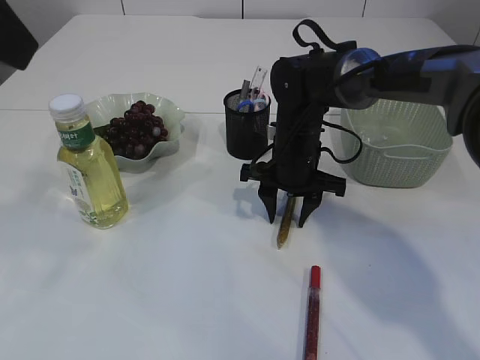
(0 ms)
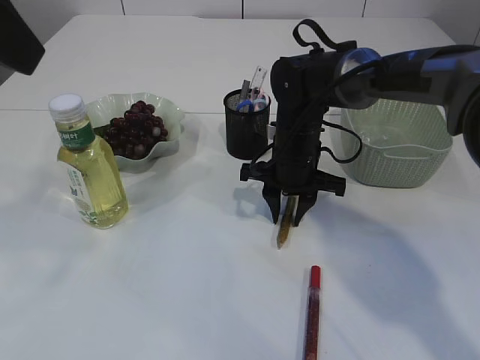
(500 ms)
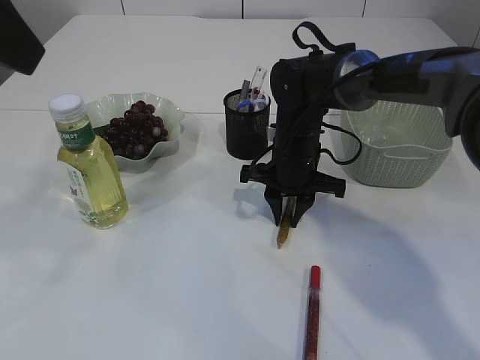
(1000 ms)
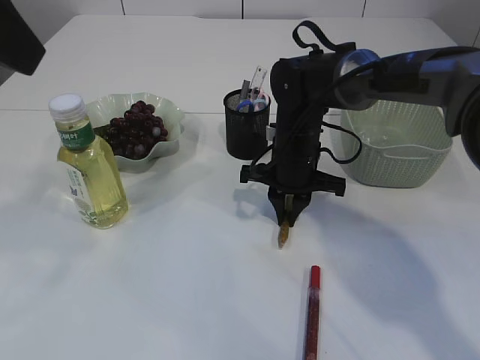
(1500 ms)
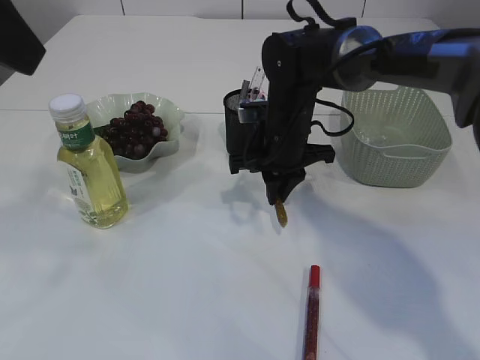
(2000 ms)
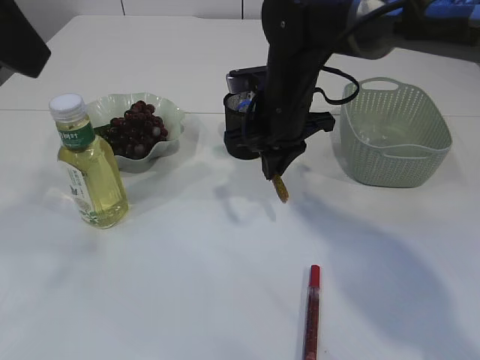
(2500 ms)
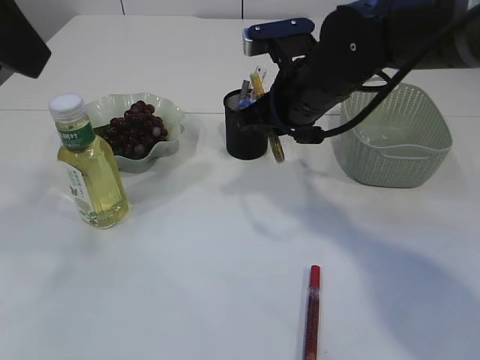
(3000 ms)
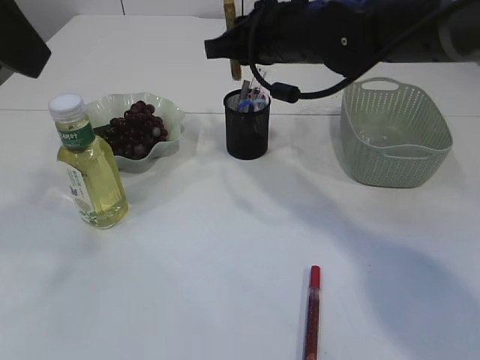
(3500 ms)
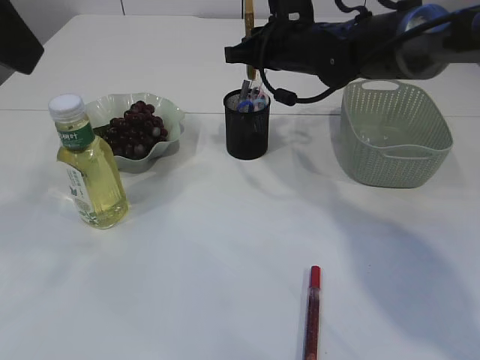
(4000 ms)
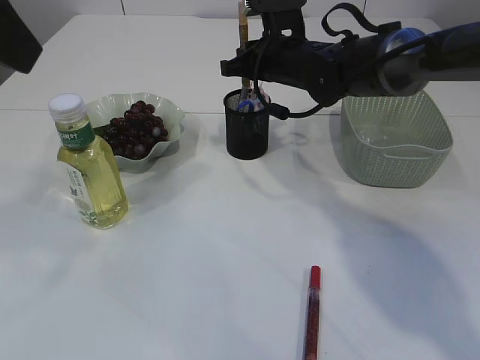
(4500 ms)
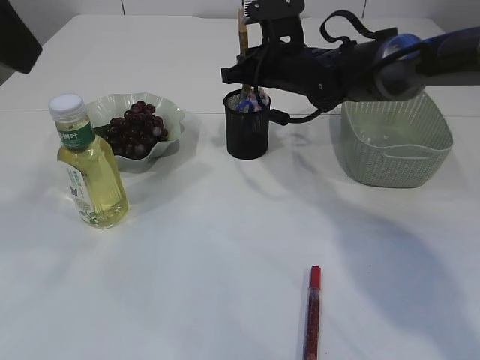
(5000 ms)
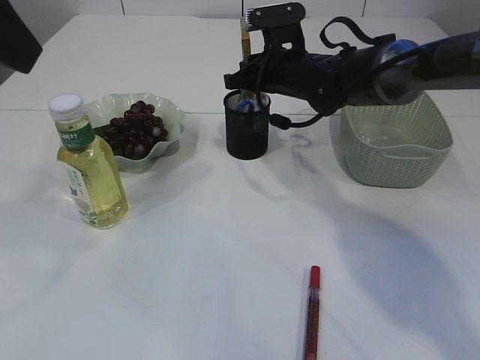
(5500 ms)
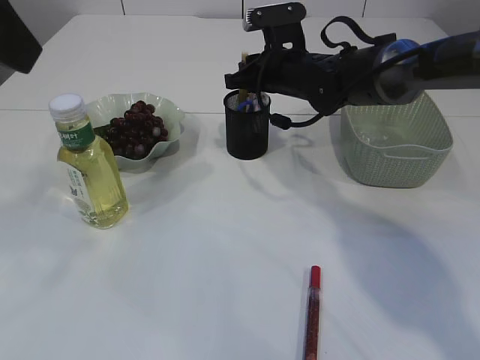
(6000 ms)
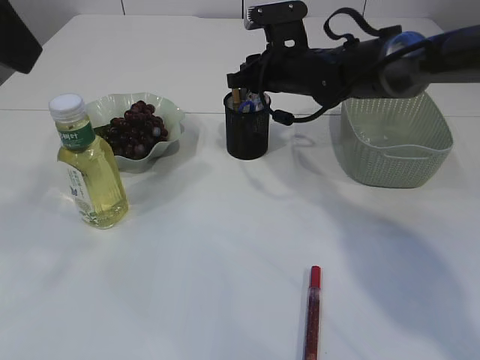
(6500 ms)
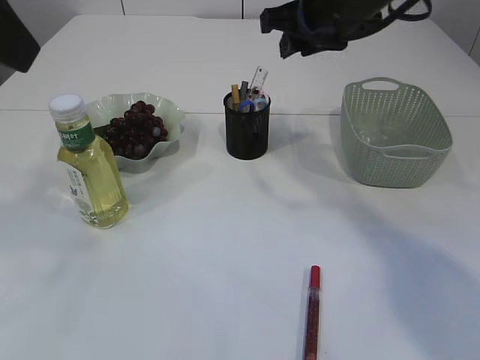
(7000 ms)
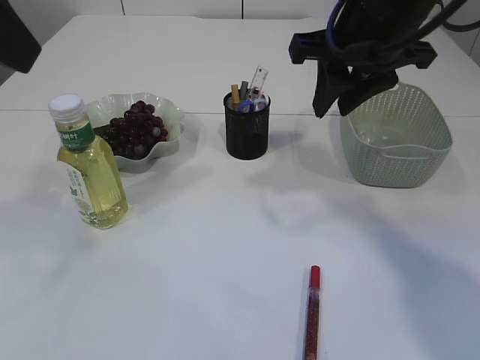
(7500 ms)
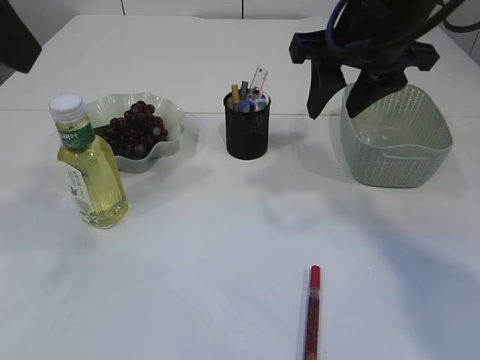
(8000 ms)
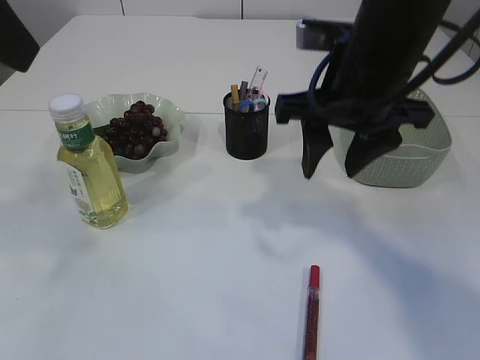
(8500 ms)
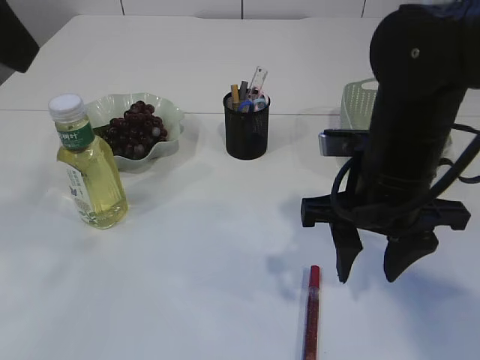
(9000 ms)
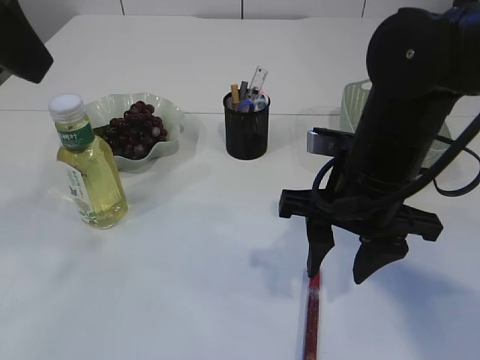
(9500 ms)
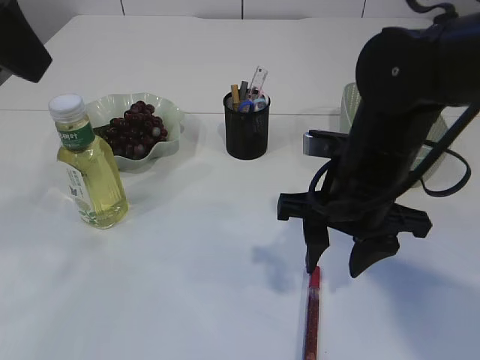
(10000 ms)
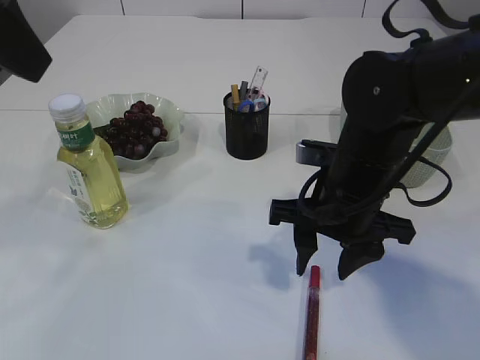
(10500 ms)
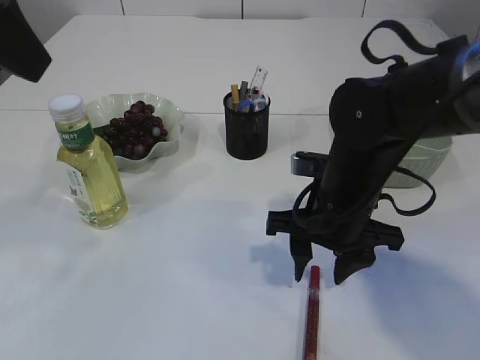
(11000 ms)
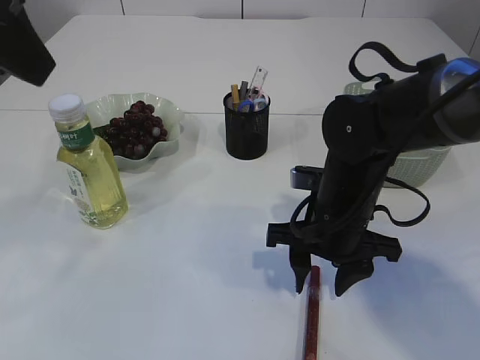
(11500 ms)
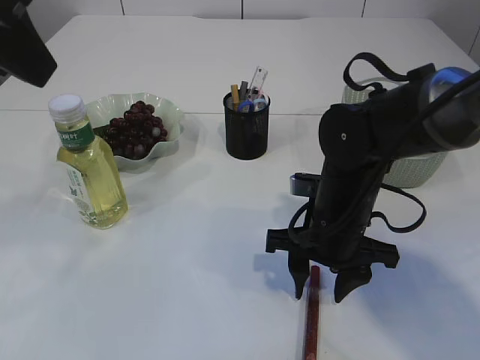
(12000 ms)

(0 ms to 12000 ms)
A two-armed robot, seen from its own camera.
Step, 0 ms - 2500 ms: pick up the yellow glue.
Step, 3000 ms - 6500 ms: place the yellow glue into the pen holder.
0 ms - 2000 ms: The right gripper closes its fingers.
2000 ms - 4000 ms: The right gripper goes some 10 cm upward.
4000 ms - 6000 ms: The grippers stay close to where they were, moving slightly.
6000 ms - 8000 ms: The right gripper is displaced backward and upward by about 20 cm, and opens its fingers.
8000 ms - 10000 ms: The right gripper moves downward and backward, some 15 cm.
10000 ms - 12000 ms: The right gripper goes approximately 10 cm downward.

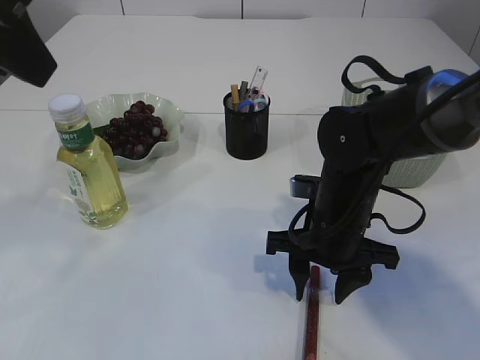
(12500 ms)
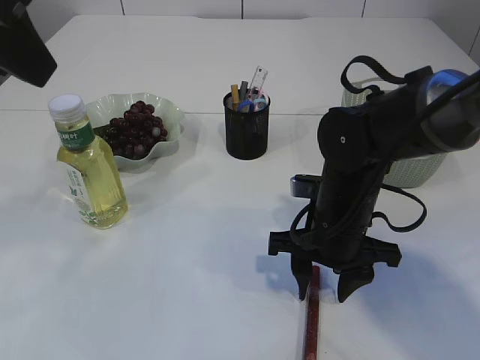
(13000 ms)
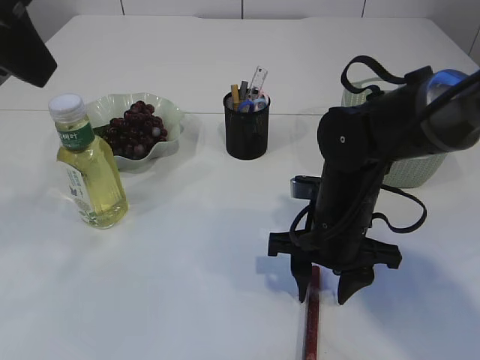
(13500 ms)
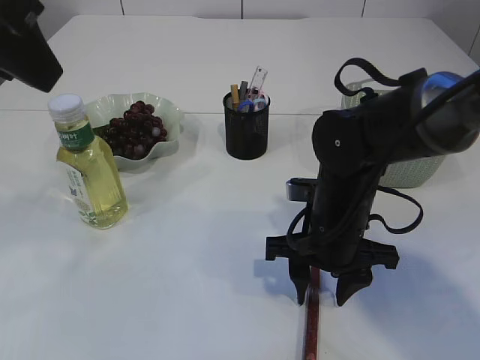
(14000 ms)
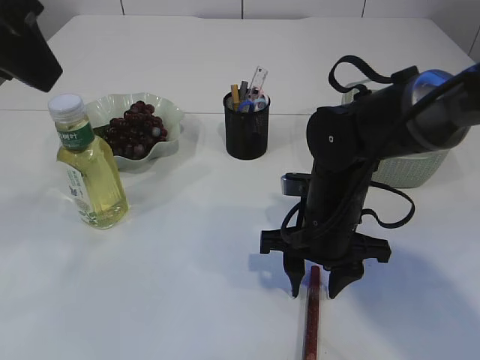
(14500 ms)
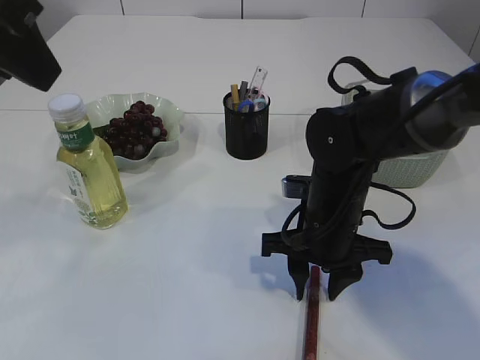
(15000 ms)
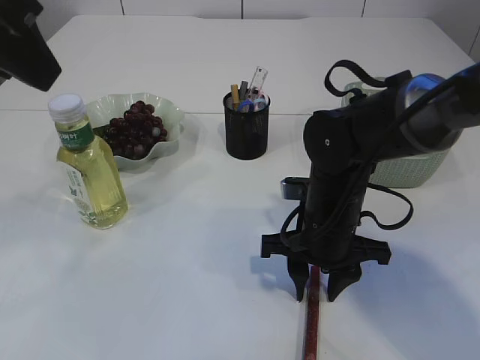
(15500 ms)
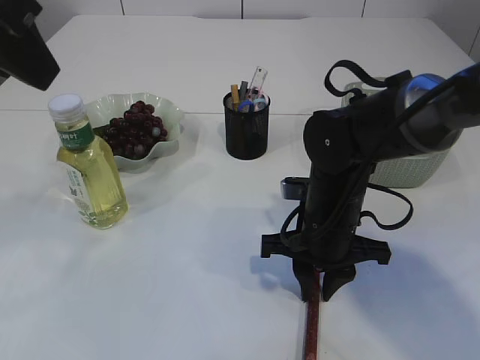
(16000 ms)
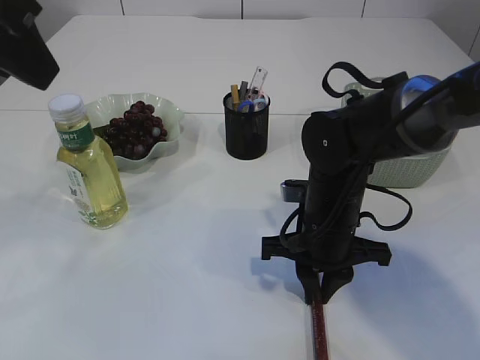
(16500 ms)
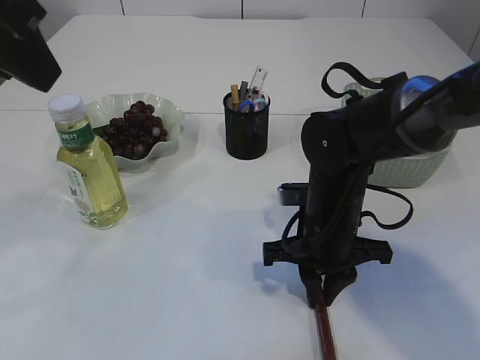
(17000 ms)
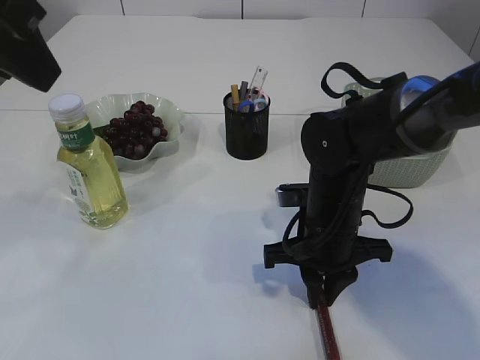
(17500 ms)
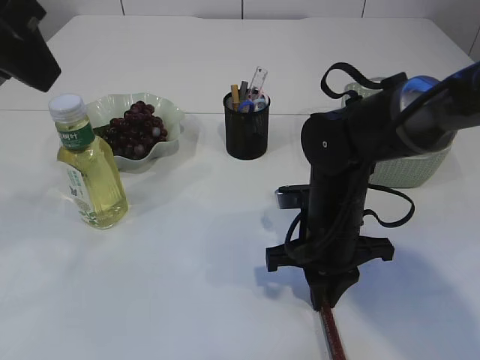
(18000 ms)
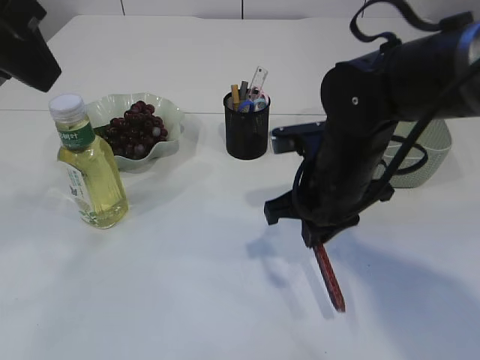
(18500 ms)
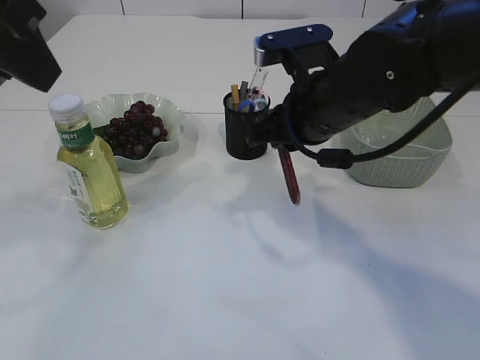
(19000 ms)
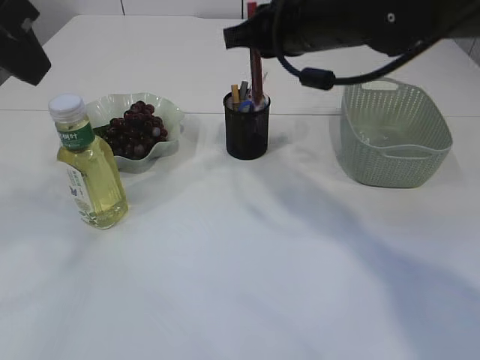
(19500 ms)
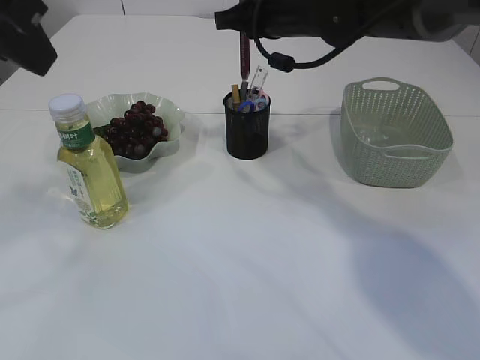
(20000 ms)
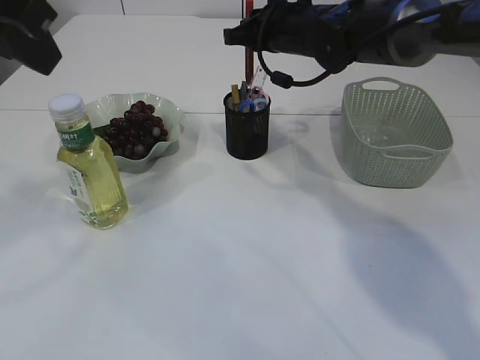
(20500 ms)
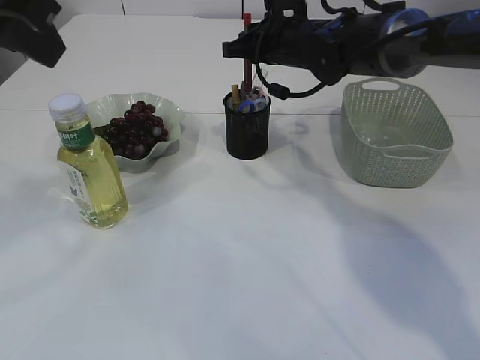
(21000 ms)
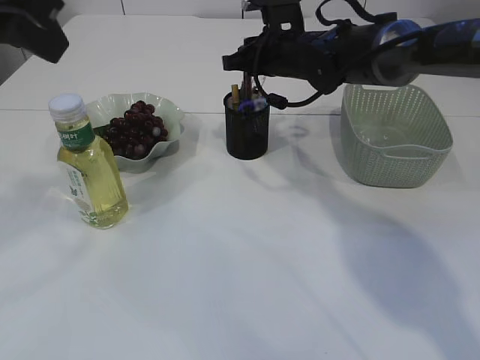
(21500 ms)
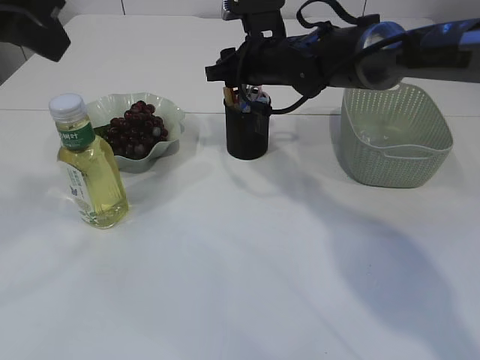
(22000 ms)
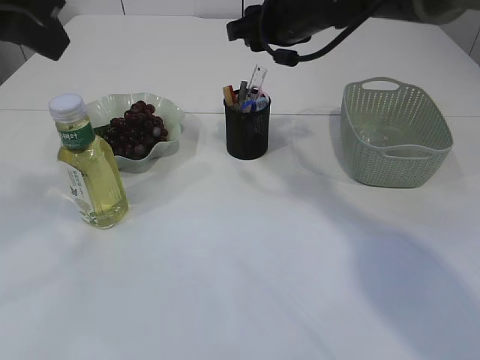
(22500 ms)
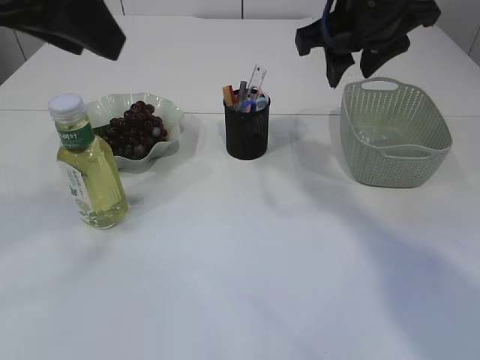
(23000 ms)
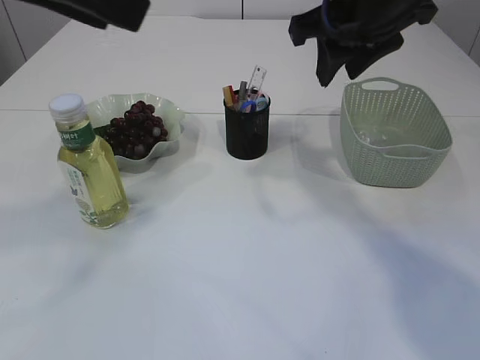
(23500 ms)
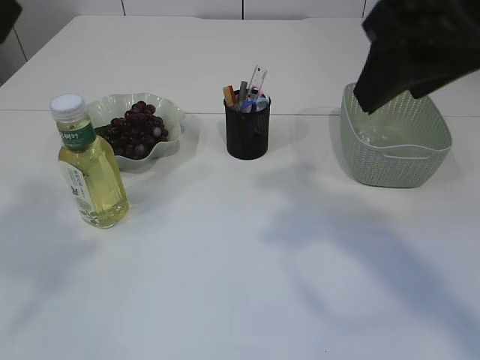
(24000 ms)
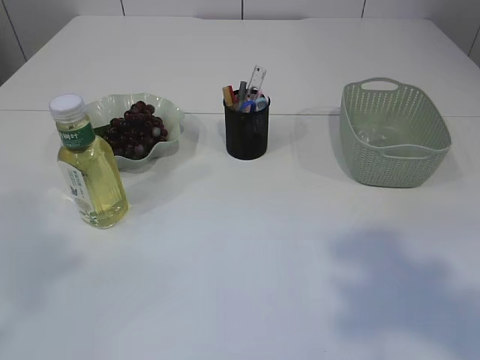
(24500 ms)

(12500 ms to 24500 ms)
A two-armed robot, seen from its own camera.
Step, 12500 ms - 18500 ms: pick up the red glue.
Step, 19000 ms - 22000 ms: place the red glue into the pen holder.
12500 ms - 14500 ms: Both grippers stay put.
14500 ms - 16500 ms: The right gripper closes.
16500 ms - 18500 ms: The right gripper travels upward by some 5 cm.
18500 ms - 20500 ms: The right gripper moves forward and upward, roughly 20 cm.
20500 ms - 22500 ms: The right gripper opens its fingers.
22500 ms - 24500 ms: The right gripper heads backward, covering approximately 35 cm, while the left gripper goes approximately 10 cm backward.

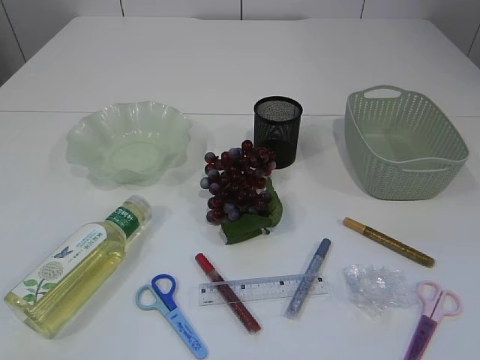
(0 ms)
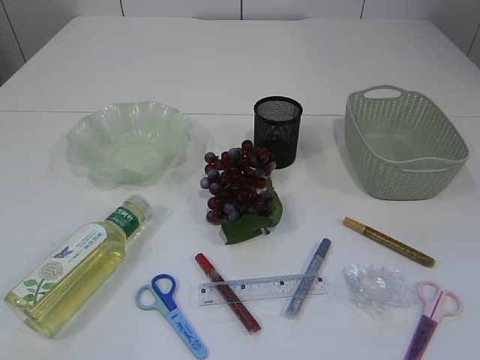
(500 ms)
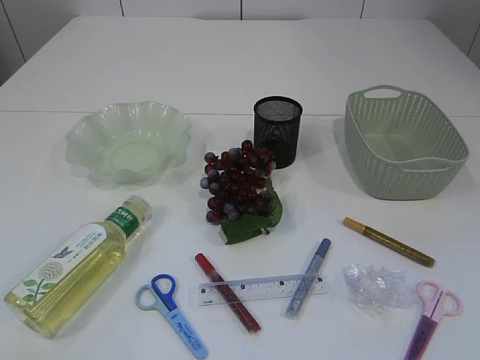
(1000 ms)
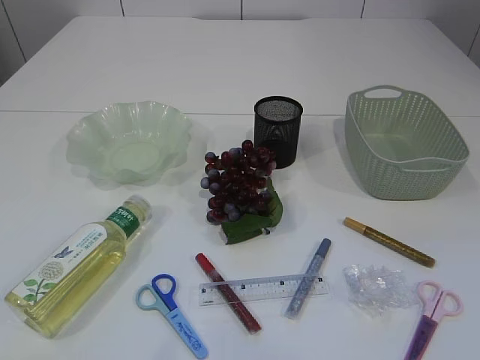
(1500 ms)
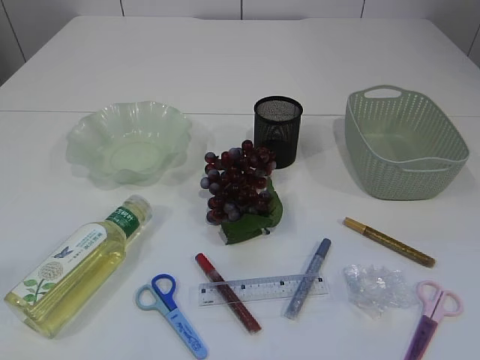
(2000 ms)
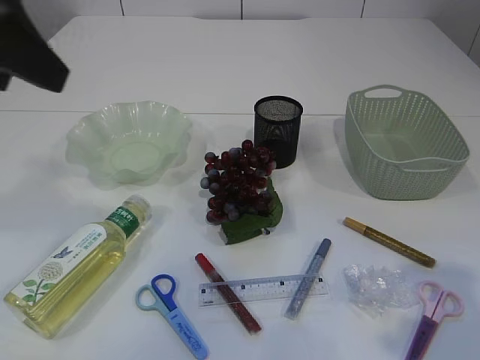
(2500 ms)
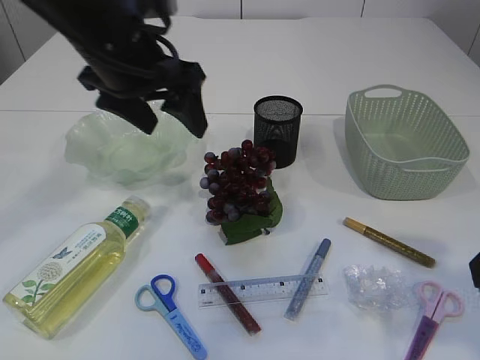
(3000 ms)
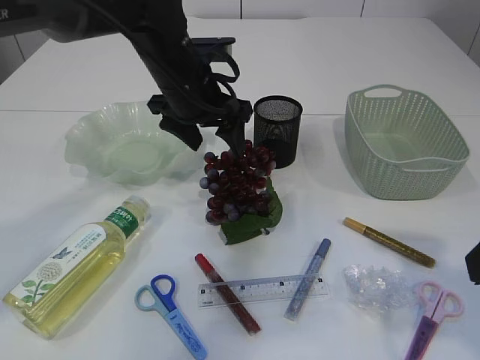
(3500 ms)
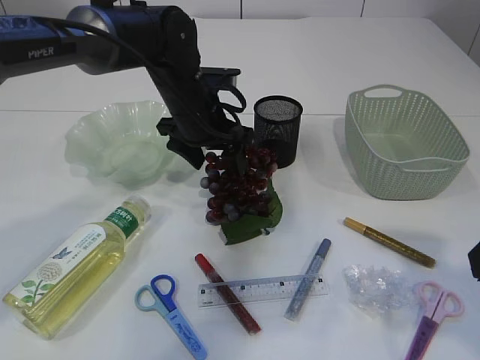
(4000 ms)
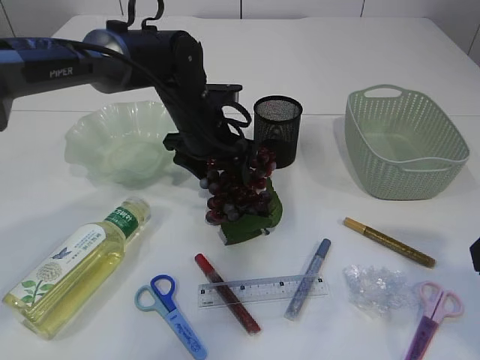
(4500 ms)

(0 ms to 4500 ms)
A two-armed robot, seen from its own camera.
2000 ms - 4500 ms: The right gripper goes roughly 15 cm forward, while the left gripper is displaced forward, downward and to the right by some 50 cm.
